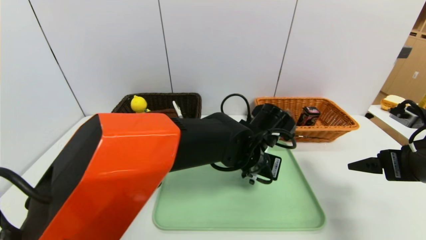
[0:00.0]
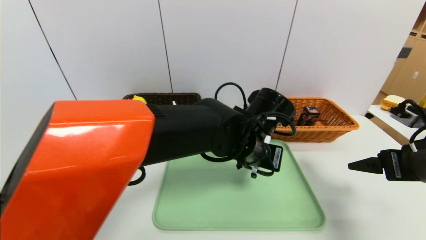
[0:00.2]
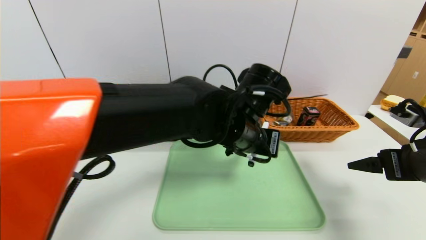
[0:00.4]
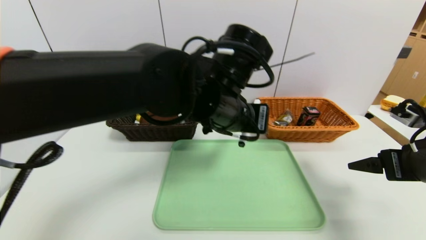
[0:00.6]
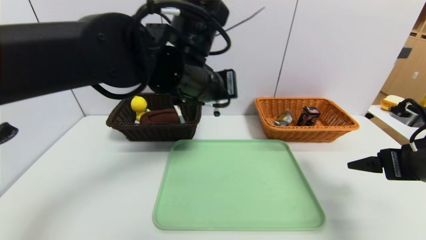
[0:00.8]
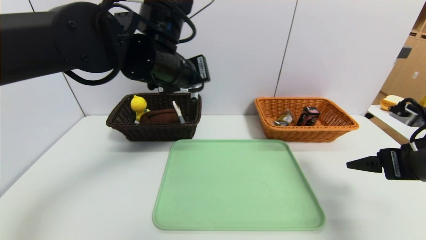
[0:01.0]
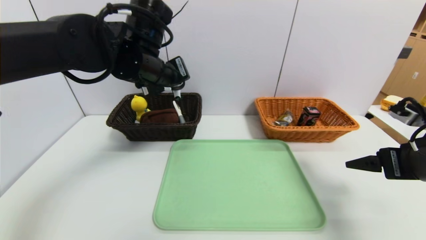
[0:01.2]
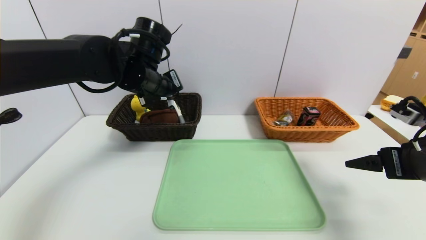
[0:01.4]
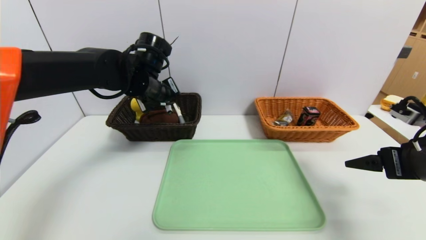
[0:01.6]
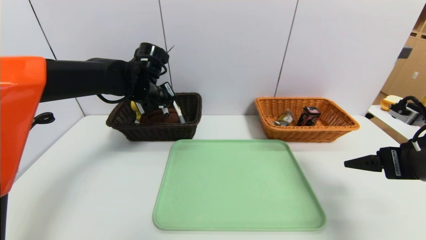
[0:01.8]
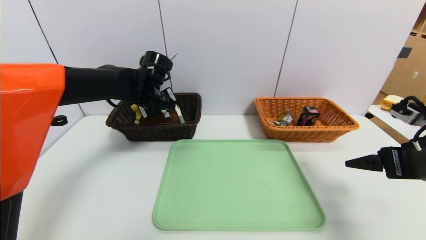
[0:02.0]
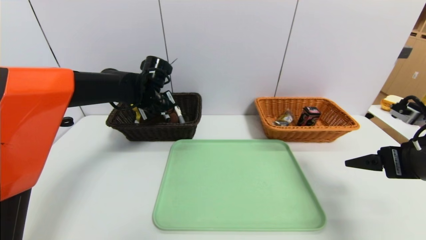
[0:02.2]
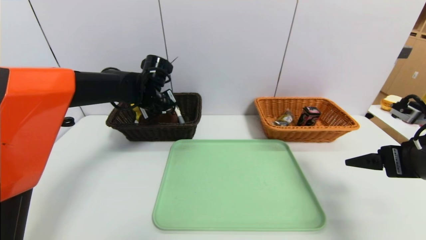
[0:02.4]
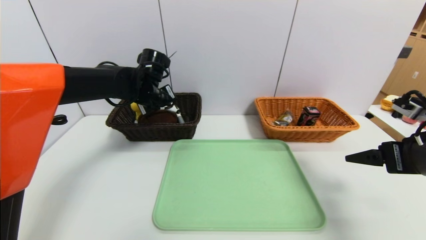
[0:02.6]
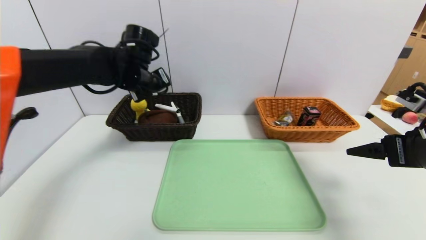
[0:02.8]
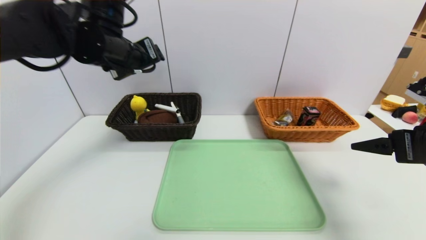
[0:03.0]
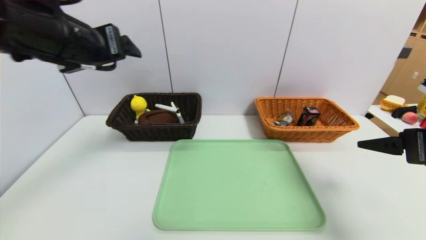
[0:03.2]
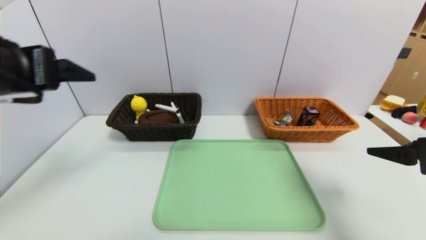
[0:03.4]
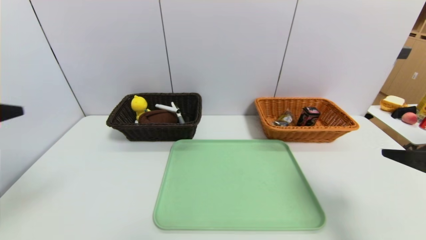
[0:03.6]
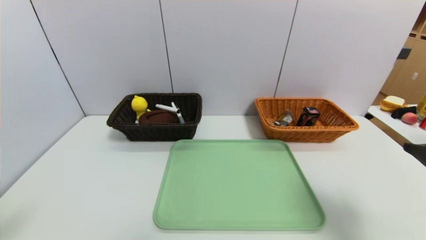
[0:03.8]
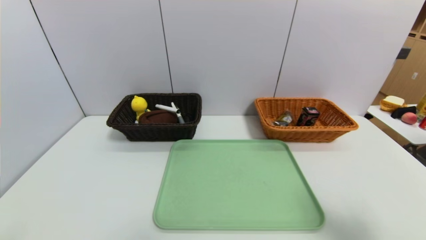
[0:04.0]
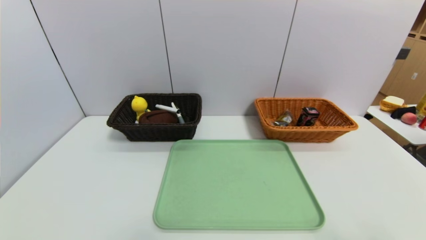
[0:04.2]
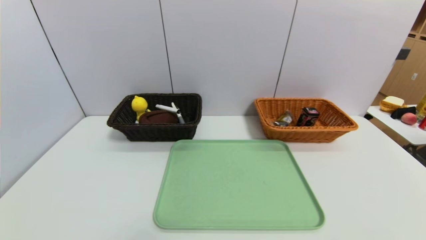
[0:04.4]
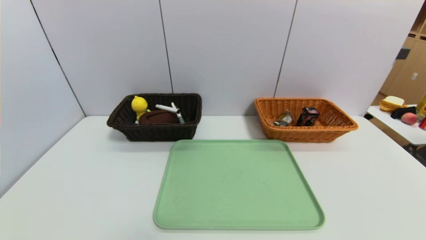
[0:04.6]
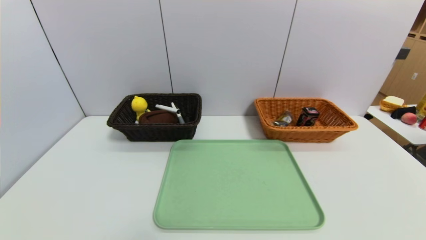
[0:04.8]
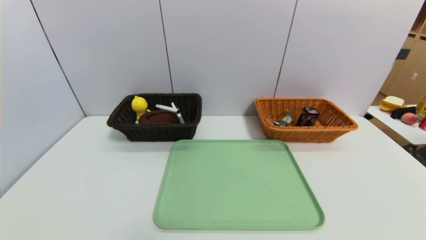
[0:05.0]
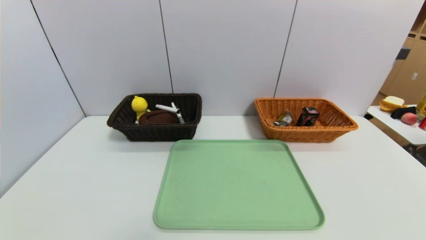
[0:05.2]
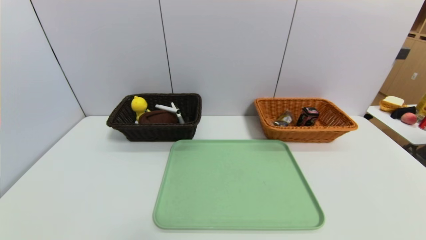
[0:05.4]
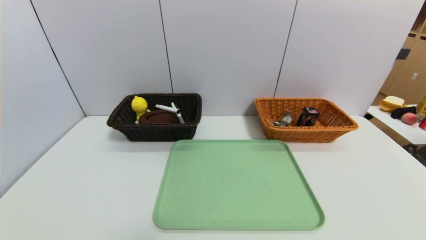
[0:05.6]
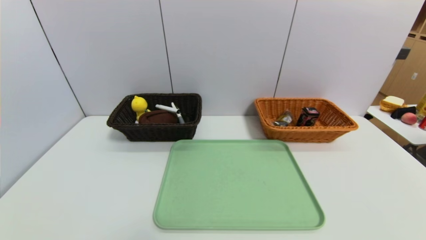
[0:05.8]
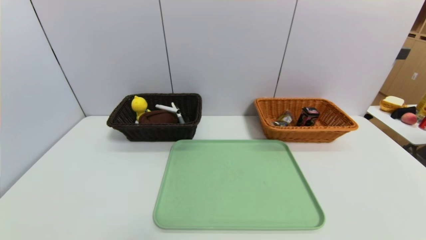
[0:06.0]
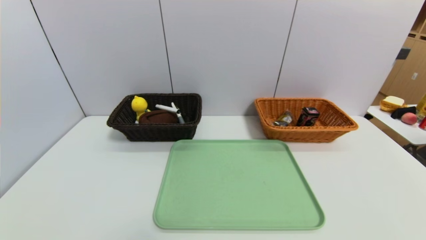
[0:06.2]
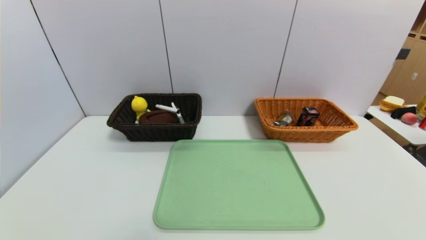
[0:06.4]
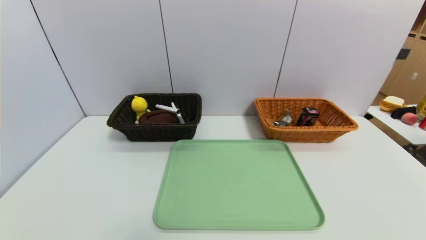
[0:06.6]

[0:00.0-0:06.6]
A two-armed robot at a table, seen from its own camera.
Task of the whole recording: place the food in the right basket with the right gripper, and place the non food items in the left basket with the left gripper.
Step, 0:00.0 to 0:03.4: Grasp the black marker and put it in the left basket.
0:00.0 to 0:01.6: The left gripper moves to the left, forward and upward, some 25 cm.
0:01.6 to 0:03.2: The left gripper moves backward, upward and to the left, some 20 cm, and opens.
0:03.2 to 0:05.0: The grippers both shift backward and downward by about 30 cm.
